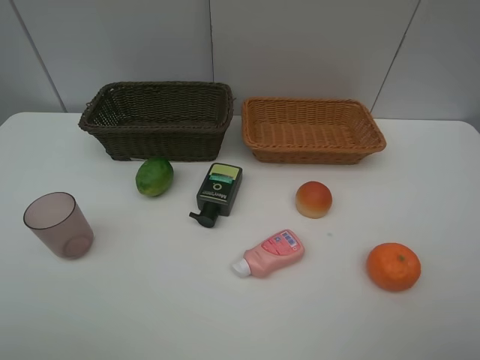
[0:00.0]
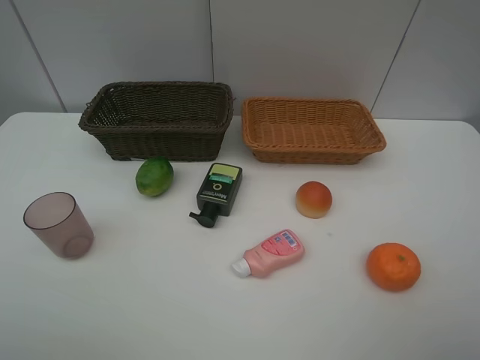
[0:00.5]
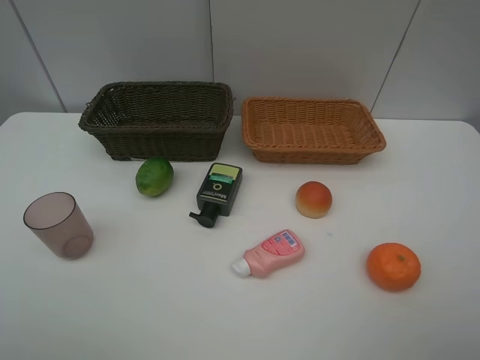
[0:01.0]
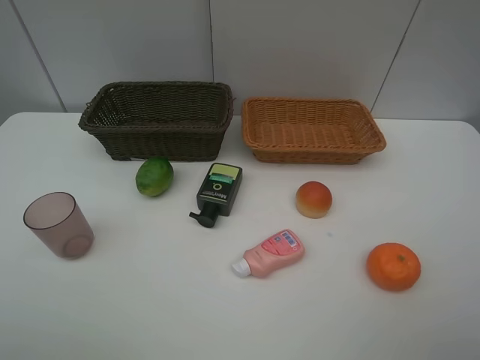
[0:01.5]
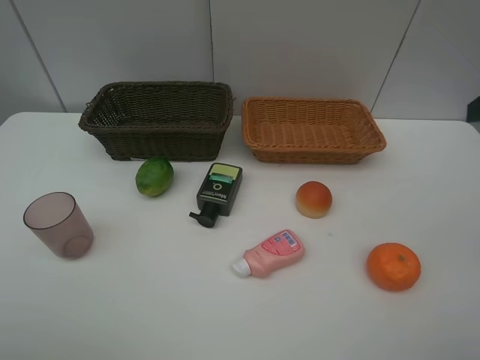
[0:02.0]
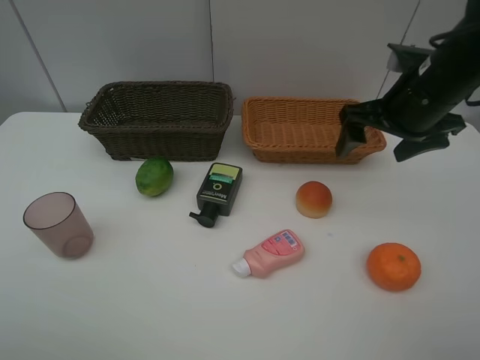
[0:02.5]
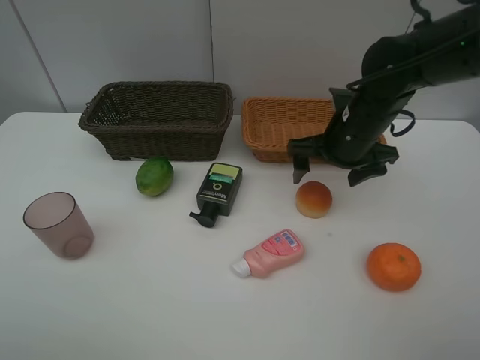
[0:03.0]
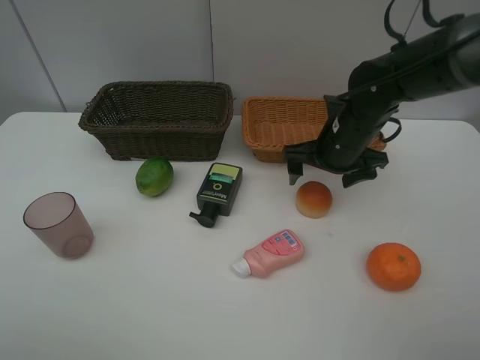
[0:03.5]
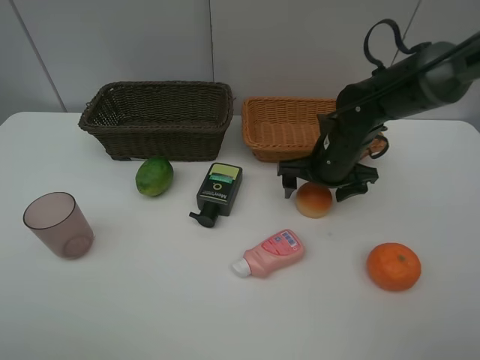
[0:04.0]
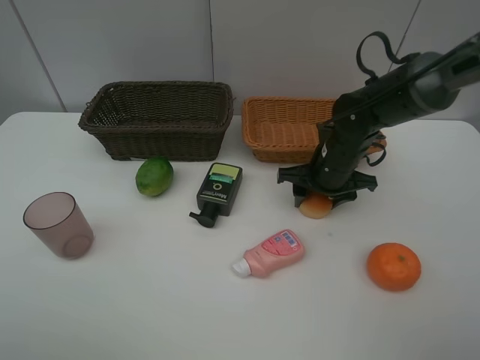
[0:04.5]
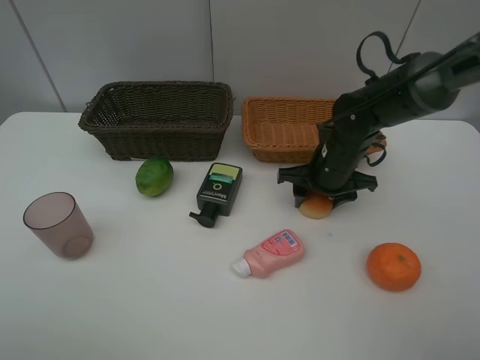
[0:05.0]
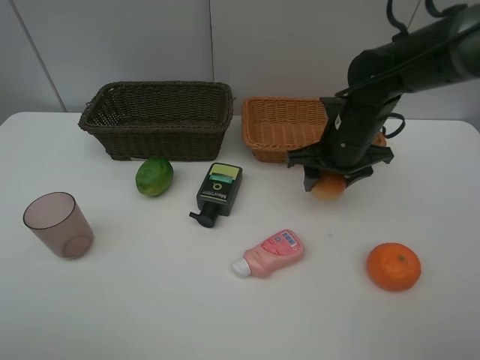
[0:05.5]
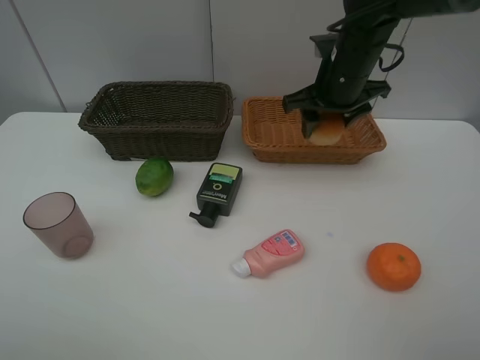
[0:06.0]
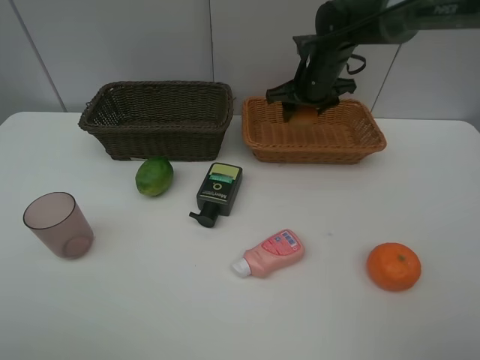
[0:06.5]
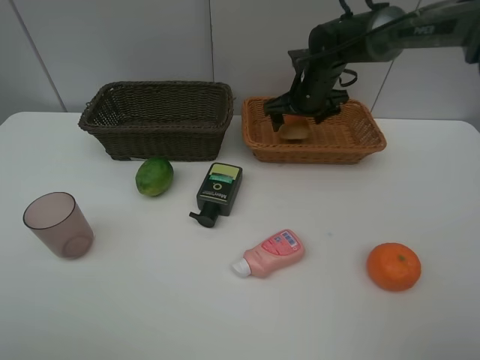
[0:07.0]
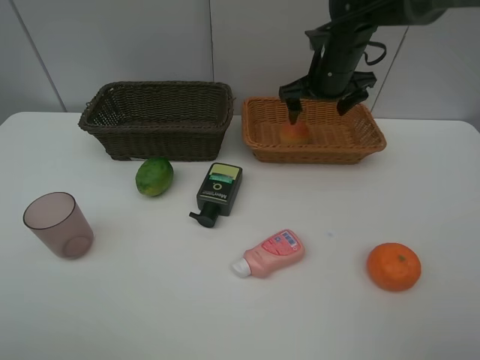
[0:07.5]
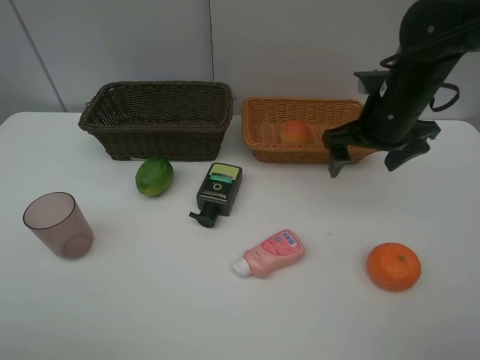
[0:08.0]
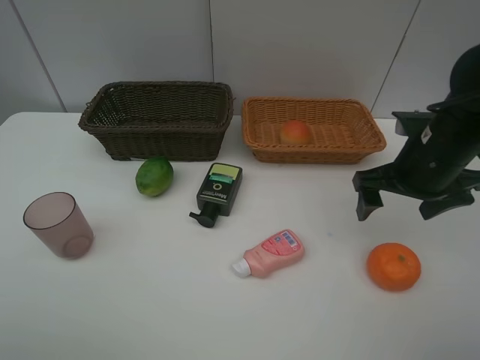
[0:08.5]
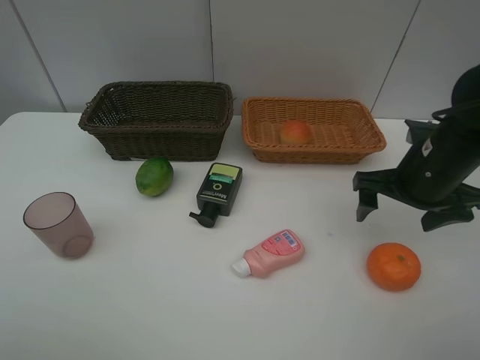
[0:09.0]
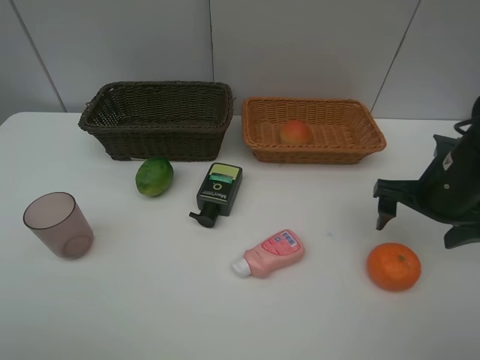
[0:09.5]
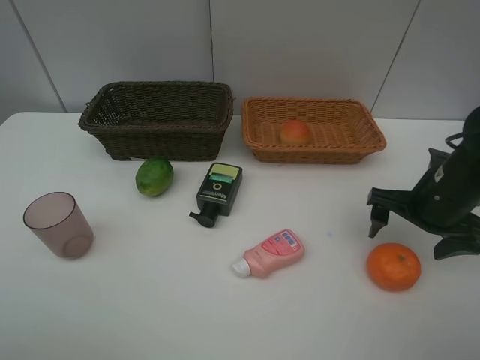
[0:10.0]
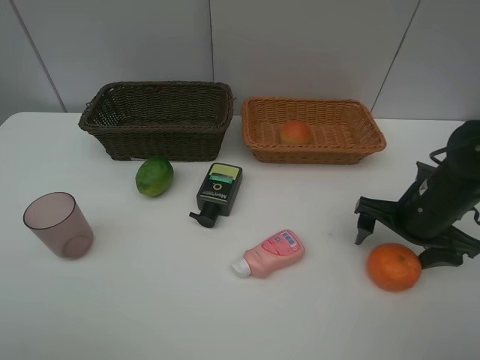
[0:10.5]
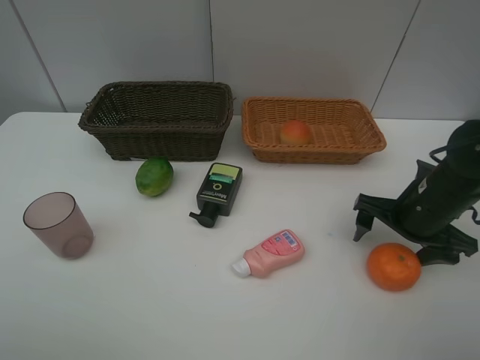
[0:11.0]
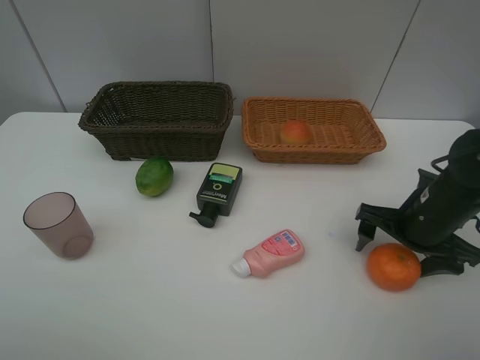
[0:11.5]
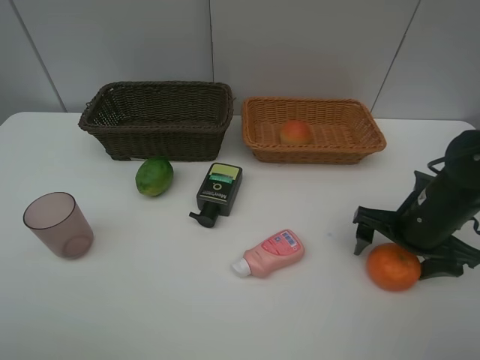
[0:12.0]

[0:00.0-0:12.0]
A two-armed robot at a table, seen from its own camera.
Task of the whole recording: place multiple objects separately in different baskets.
2.0 to 4.0 s: The right gripper shifts approximately 30 cm downward, forward and to the left.
4.0 to 6.0 s: The right gripper heads upward, covering roughly 10 cm, and closes up.
6.0 to 8.0 s: The right gripper travels backward and to the right by roughly 10 cm, and opens up.
8.0 to 10.0 s: The right gripper heads backward, downward and to the right, covering approximately 15 cm.
10.0 to 12.0 s: The grippers stay close to where they were, moving slightly.

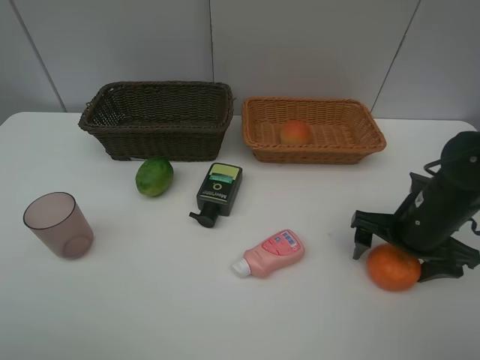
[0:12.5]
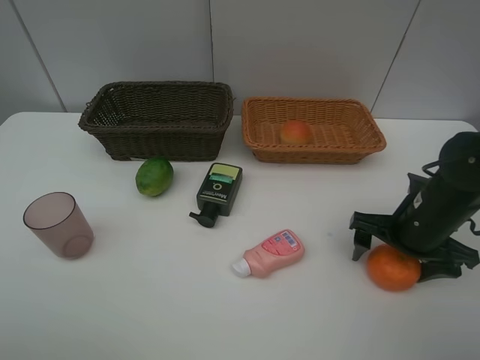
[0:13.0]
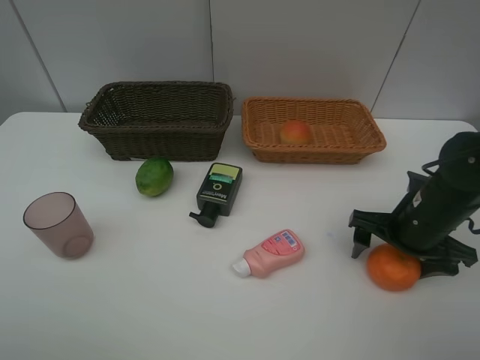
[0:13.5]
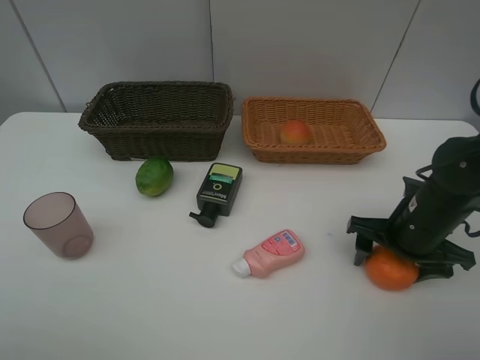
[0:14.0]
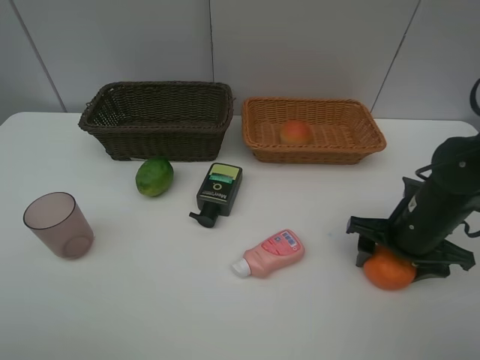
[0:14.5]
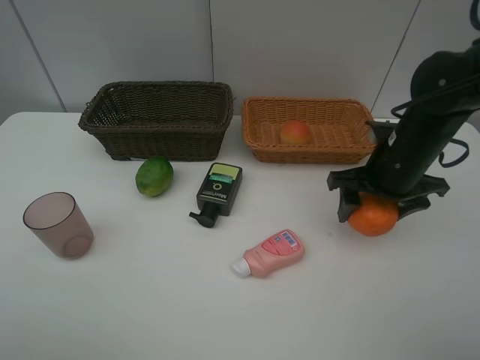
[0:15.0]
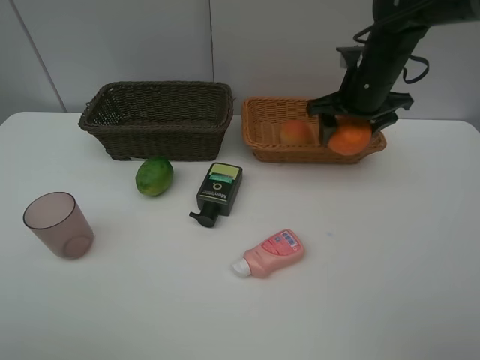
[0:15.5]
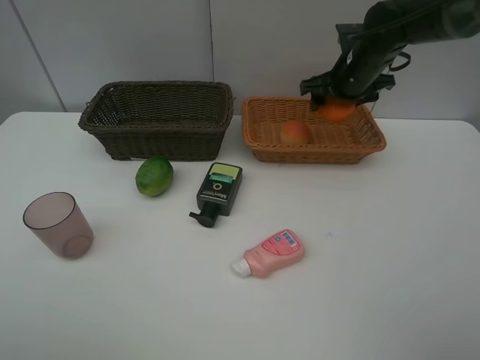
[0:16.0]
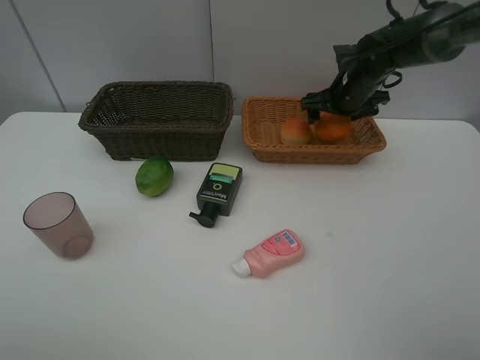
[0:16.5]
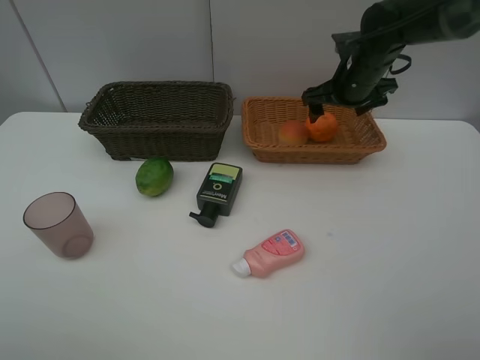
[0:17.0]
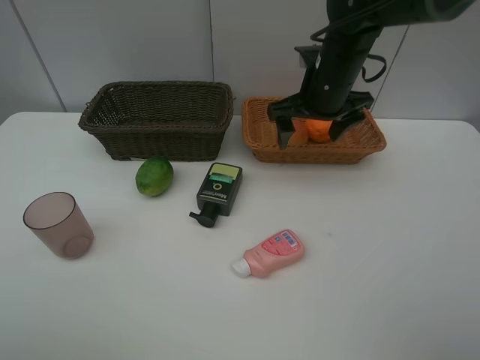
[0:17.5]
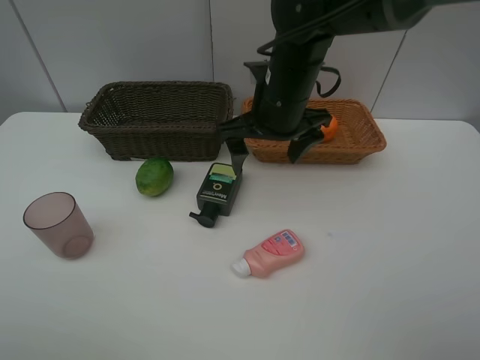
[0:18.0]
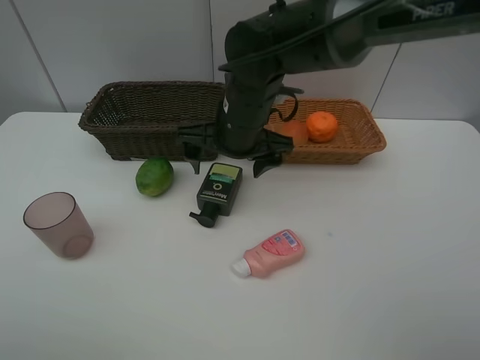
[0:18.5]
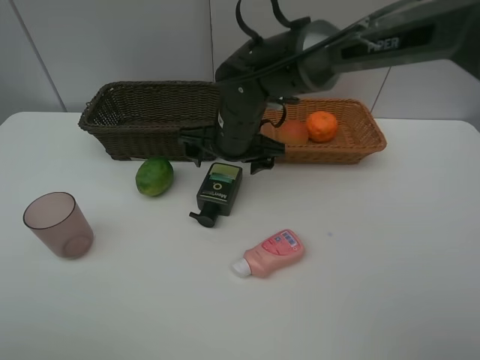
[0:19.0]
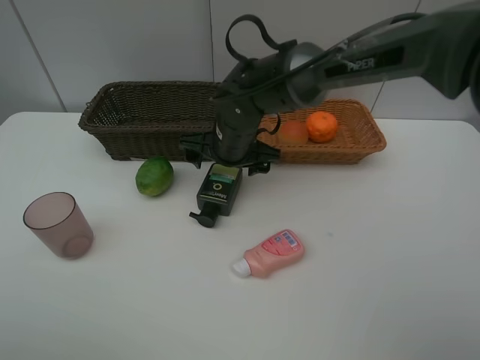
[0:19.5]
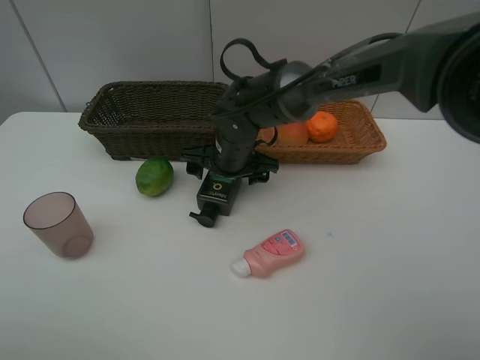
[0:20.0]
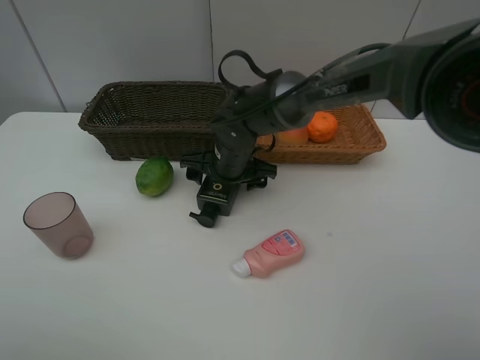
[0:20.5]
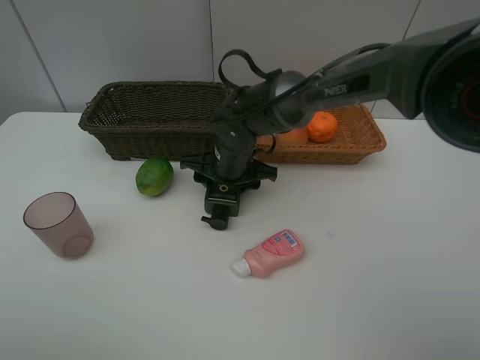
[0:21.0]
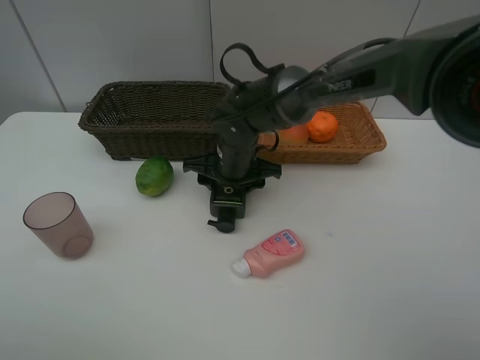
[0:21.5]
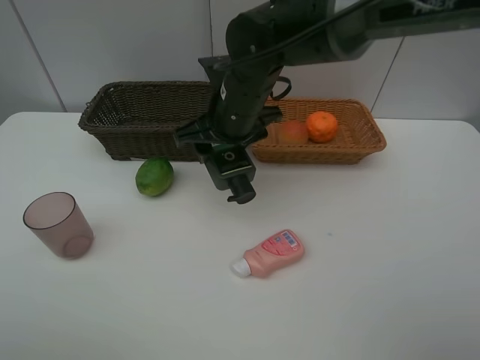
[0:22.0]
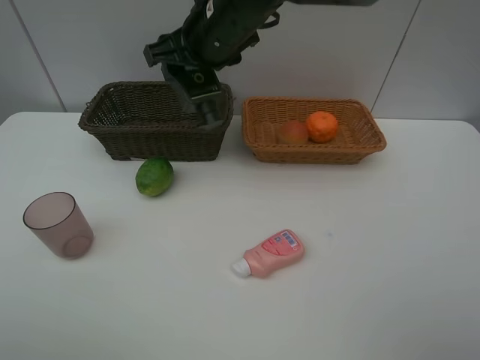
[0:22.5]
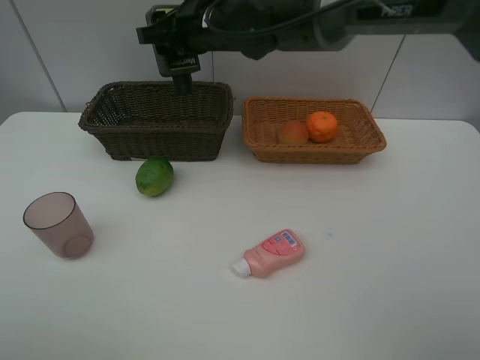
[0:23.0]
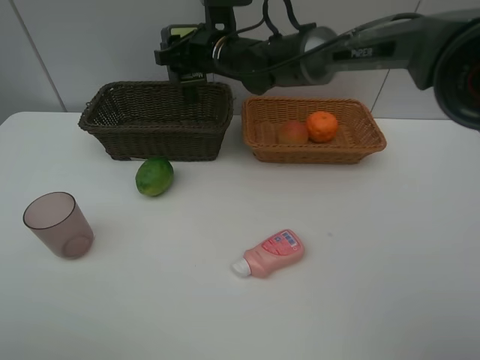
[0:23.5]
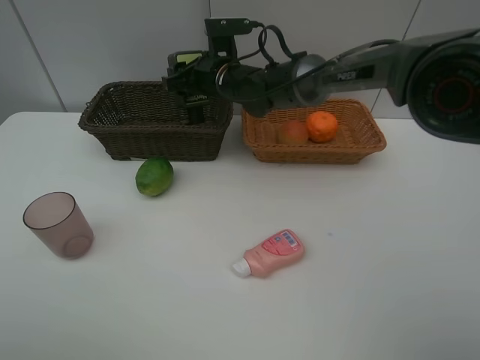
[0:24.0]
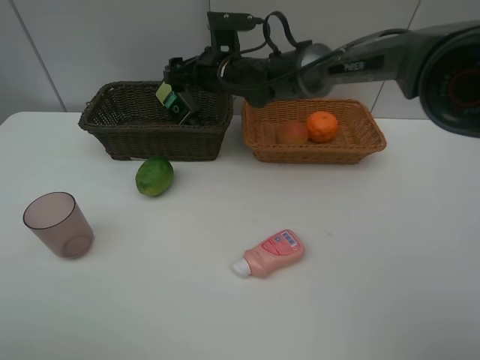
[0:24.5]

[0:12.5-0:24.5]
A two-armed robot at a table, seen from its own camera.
Task of the whole recording: place multiple objects separately in different baskets.
12.5 to 14.5 s: The right gripper closes its fingers.
14.5 to 16.5 s: The right gripper goes roughly 25 cm forward, and opens.
16.5 to 18.5 s: The right gripper goes approximately 25 cm to the left and backward.
18.5 to 20.5 s: The right gripper moves downward, about 10 cm.
20.5 to 22.5 s: The right gripper moves upward, about 20 cm, and closes up.
22.5 to 24.5 s: The right gripper is displaced downward and forward by some 15 cm, and opens up.

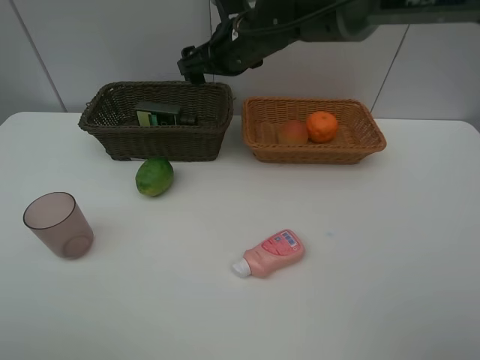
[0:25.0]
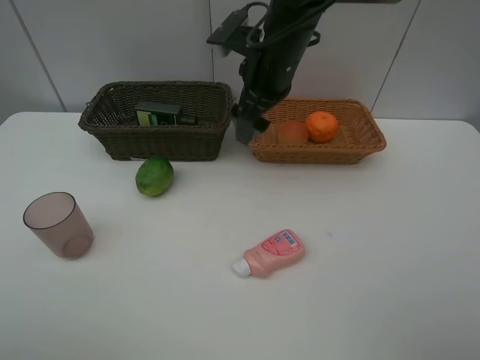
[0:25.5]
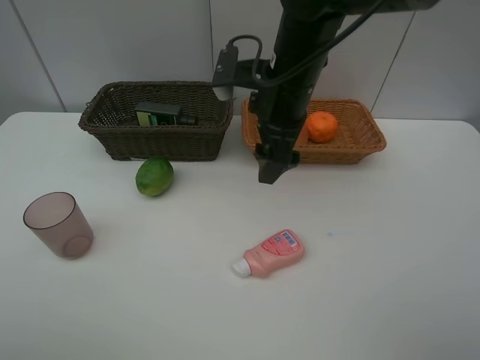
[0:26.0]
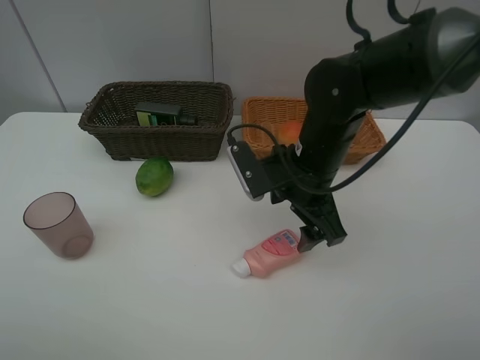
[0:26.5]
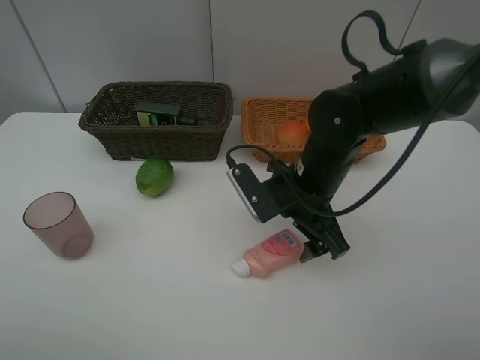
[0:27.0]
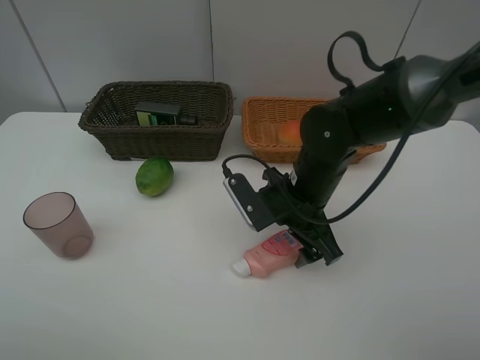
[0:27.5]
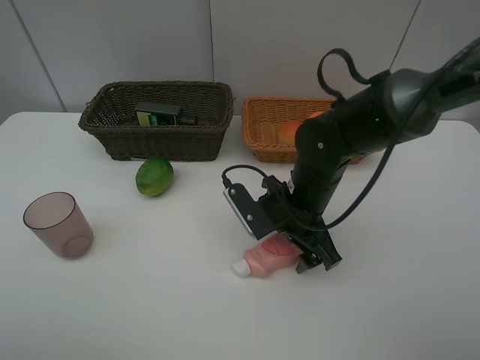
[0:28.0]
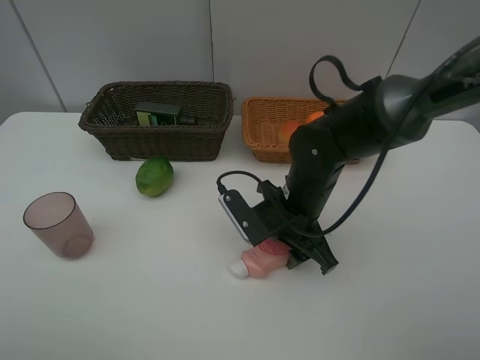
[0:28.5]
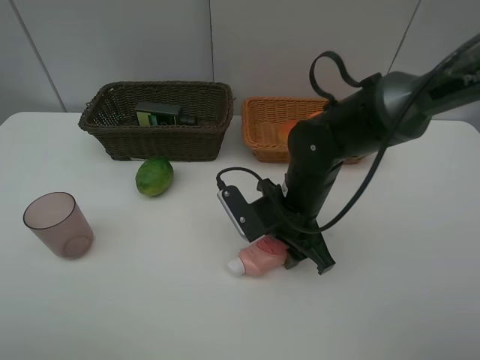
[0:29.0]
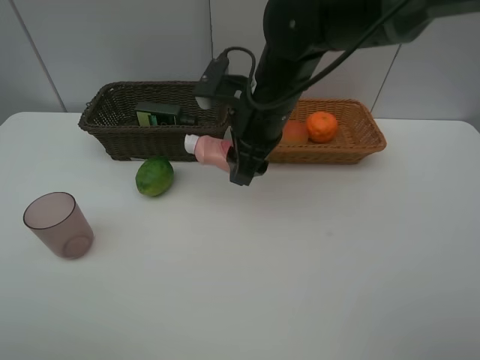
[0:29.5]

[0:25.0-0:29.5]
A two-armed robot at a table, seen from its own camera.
Task of the whole recording: place multiple objects separately in different baskets.
25.0 to 27.0 s: The right gripper travels backward, downward and to the right by about 20 cm.
27.0 to 29.5 s: The right gripper travels upward, to the left and forward by roughly 10 cm, and closes up.
